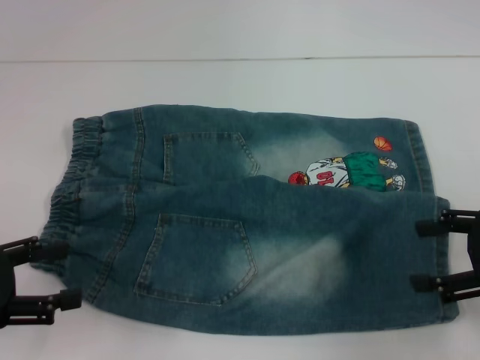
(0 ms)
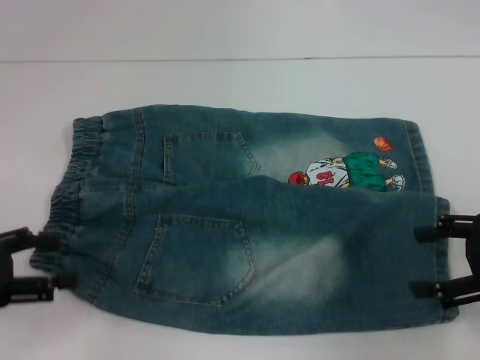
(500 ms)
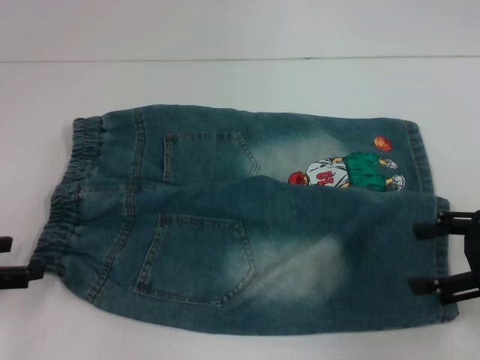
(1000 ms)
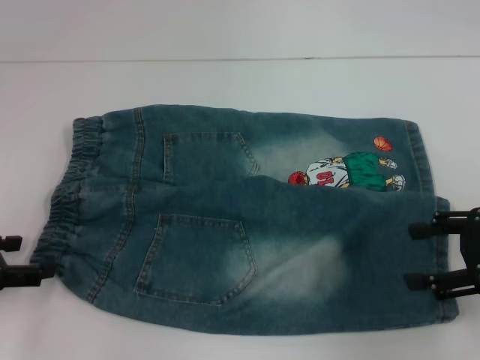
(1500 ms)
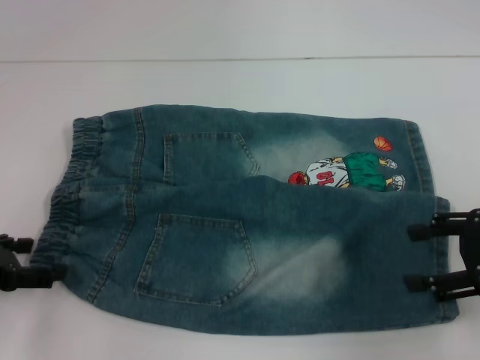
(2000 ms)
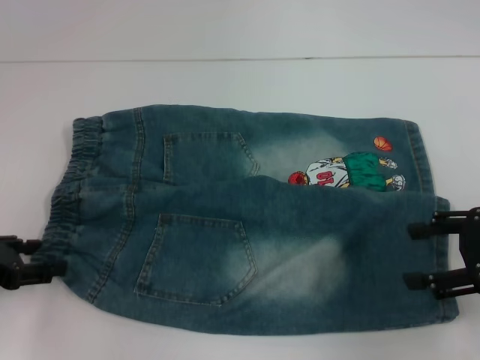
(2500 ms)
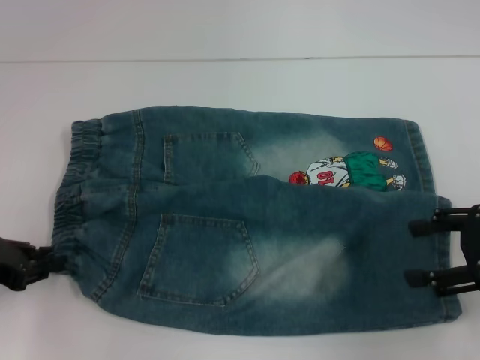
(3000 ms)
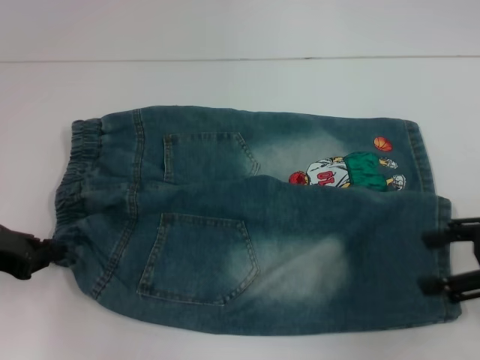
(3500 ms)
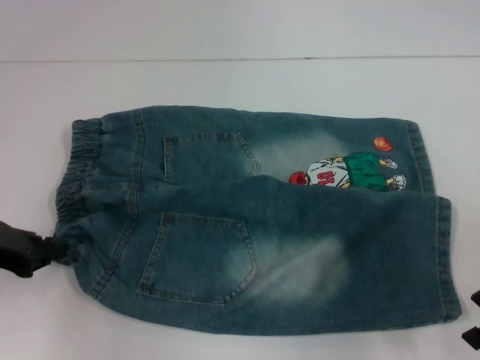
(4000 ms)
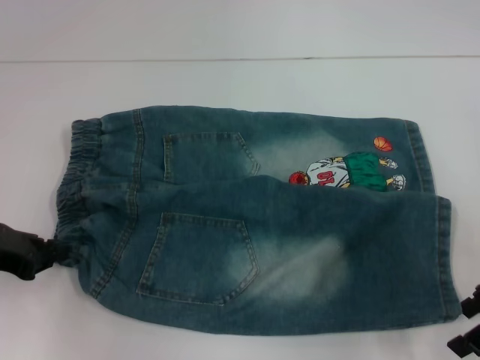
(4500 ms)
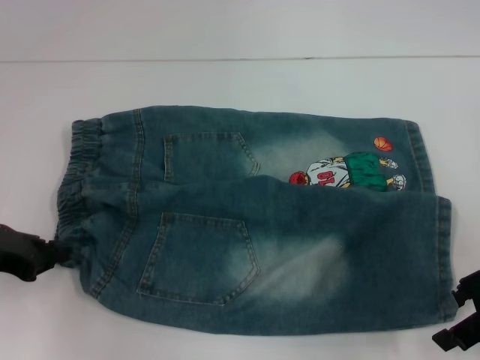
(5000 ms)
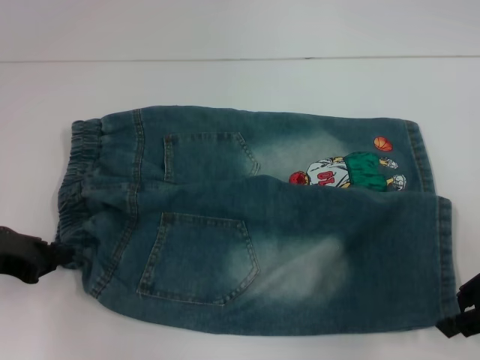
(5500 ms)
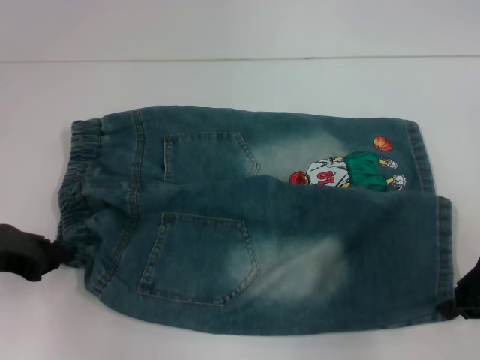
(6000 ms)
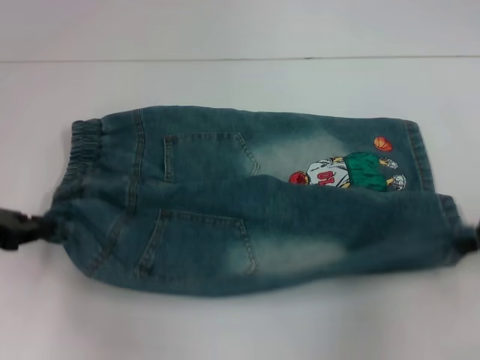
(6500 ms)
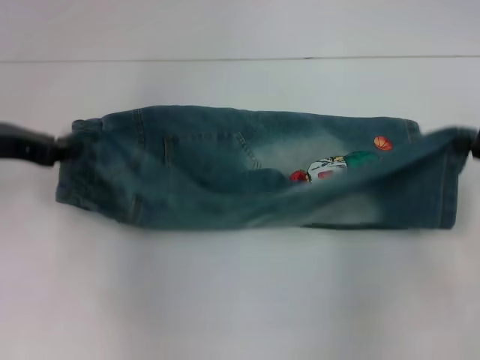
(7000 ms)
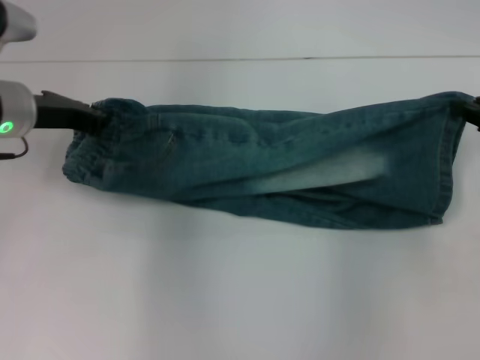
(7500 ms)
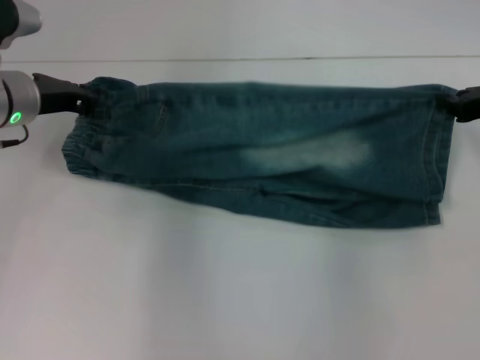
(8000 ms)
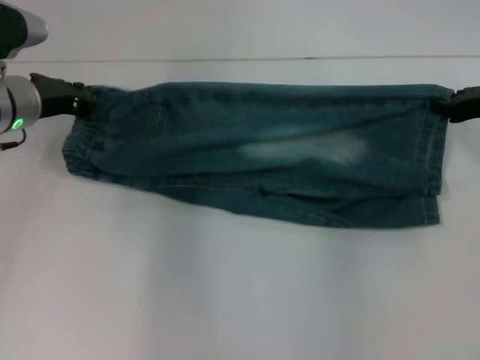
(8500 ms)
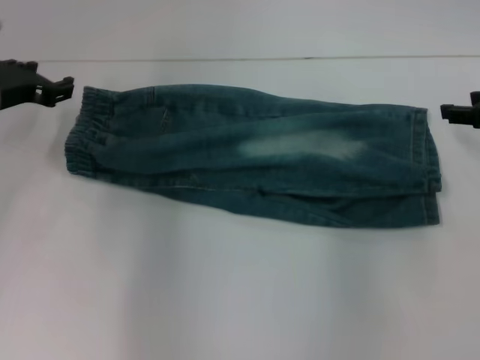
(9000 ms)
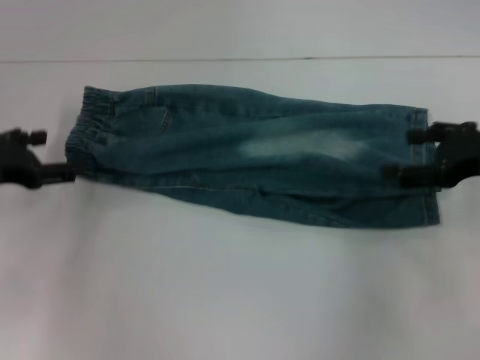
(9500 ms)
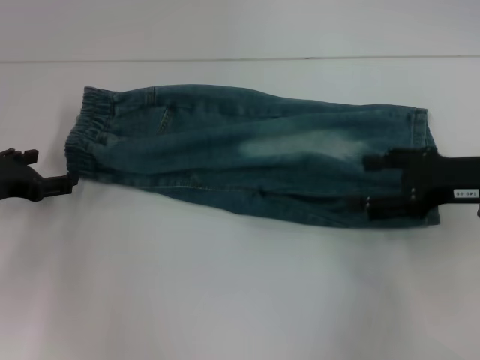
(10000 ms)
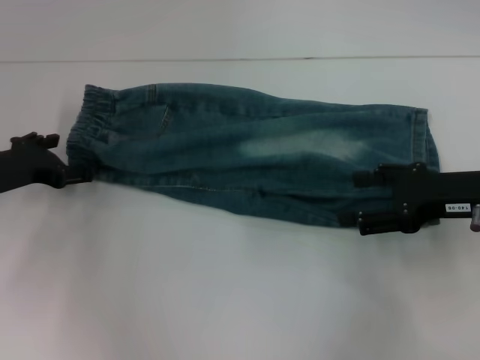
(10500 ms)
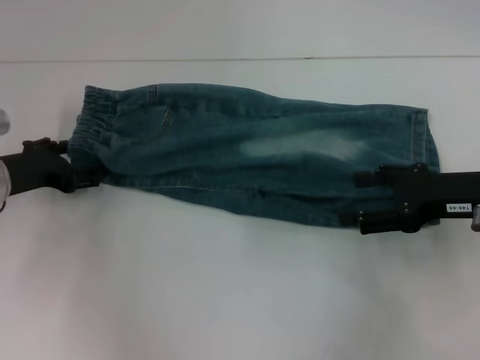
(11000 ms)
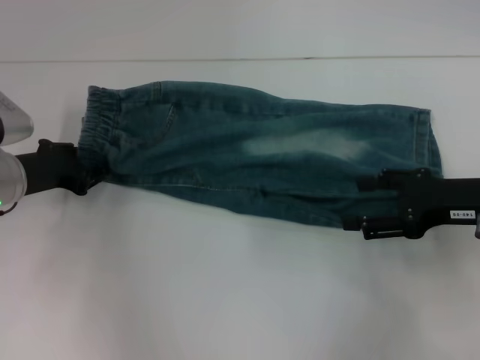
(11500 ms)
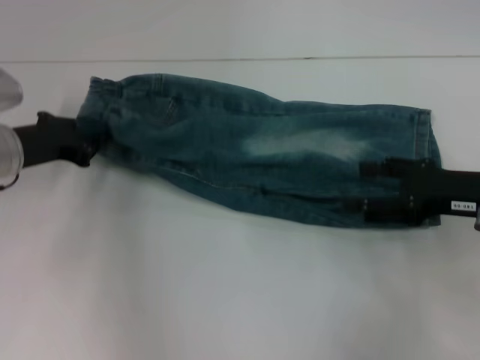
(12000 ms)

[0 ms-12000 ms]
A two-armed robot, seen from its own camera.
Step, 0 ms to 2500 ms: Hold the lower left waistband with your left hand.
Step, 3000 ms to 5500 ms: Grab the lower right pant leg with your right hand.
Step, 6500 ms to 8500 ms: Fold upward with your right hand.
Step, 9000 ms to 11000 ms: Hold the waistband with your left hand.
2000 ms to 4000 ms: The left gripper closes its fingers.
4000 ms to 6000 ms: The right gripper closes its fingers.
6000 ms to 8000 ms: The right gripper is displaced forward by approximately 10 cm; the left gripper shifts roughly 15 cm forward and to the right.
8000 ms to 10000 ms: The right gripper shifts approximately 5 cm backward, and opens up; the left gripper travels to the left, backward and downward by some 15 cm, and opens up.
10000 ms to 12000 ms: The left gripper shifts some 5 cm to the right, and closes.

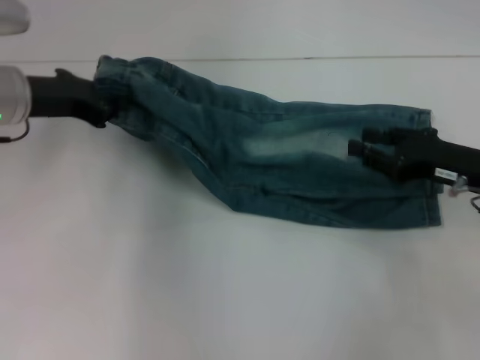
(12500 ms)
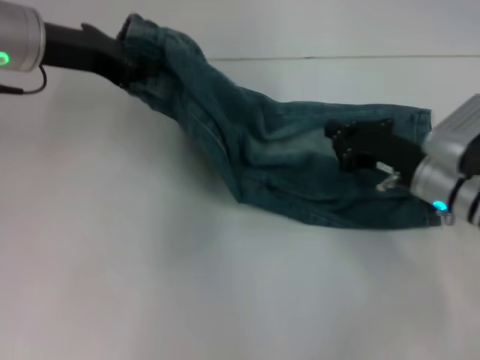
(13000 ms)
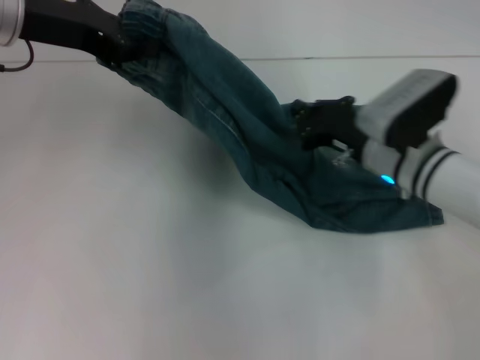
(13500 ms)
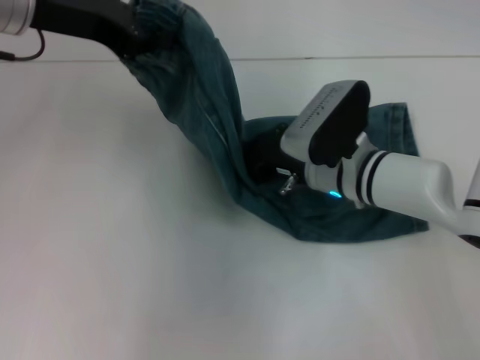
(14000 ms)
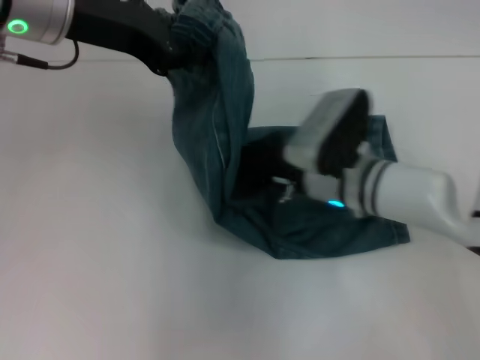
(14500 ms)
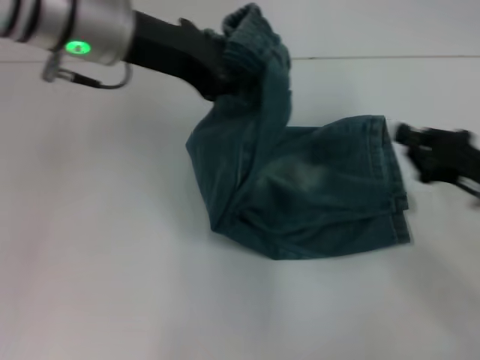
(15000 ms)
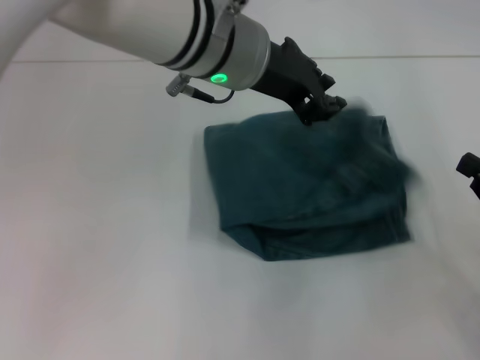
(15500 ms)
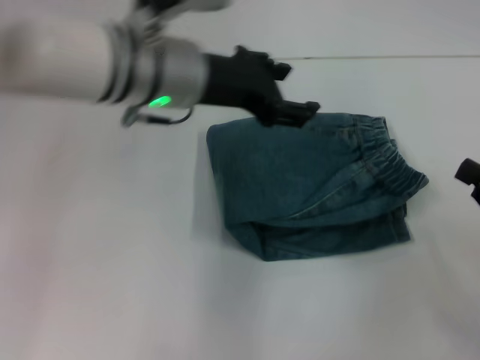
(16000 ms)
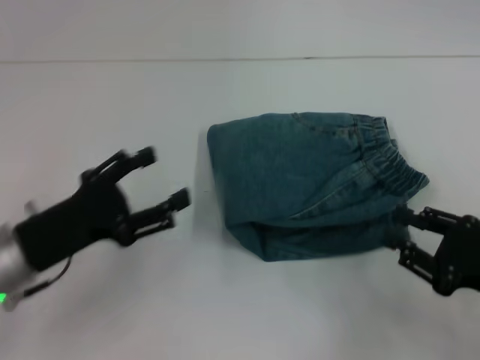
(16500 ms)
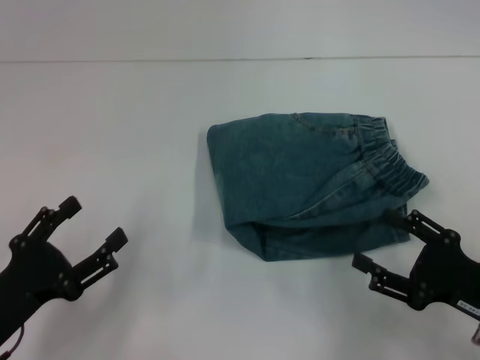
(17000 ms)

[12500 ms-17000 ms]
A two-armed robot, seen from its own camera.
Step, 12500 ms to 14500 ms: Press the middle of the pants with your right hand.
Step, 15000 ms to 15500 ms: Fold to the right with your left hand.
12500 ms to 14500 ms: The left gripper travels upward and to the right by roughly 10 cm, while the right gripper is displaced to the left by about 15 cm, and closes.
14500 ms to 17000 ms: The left gripper is displaced downward and backward by about 30 cm, and opens up. Meanwhile the right gripper moves to the right and backward, some 25 cm, and opens.
